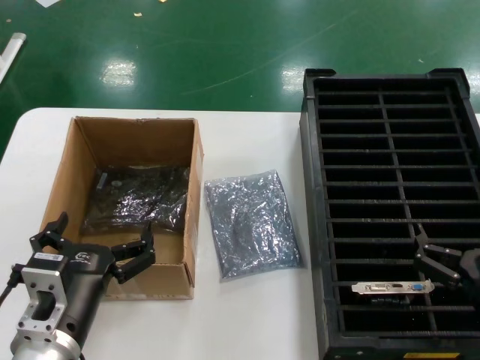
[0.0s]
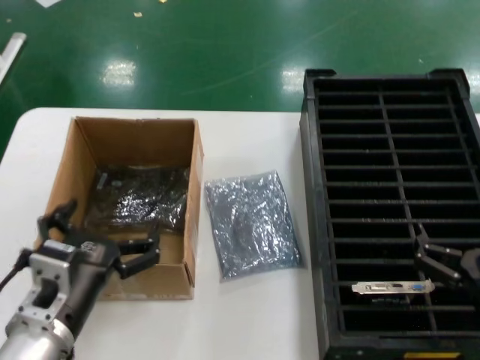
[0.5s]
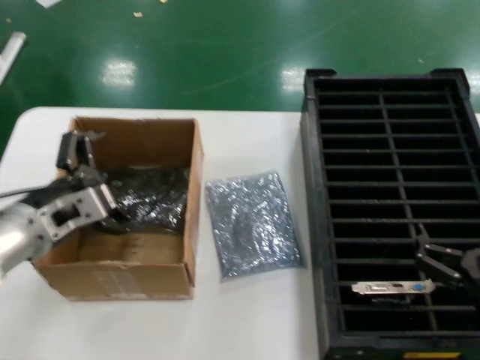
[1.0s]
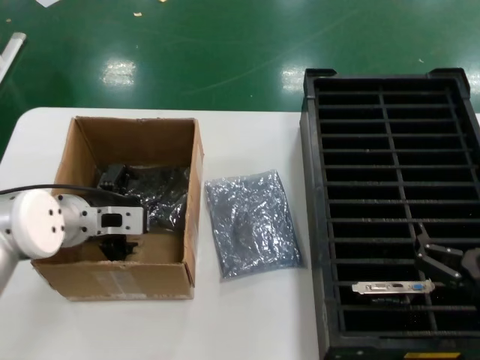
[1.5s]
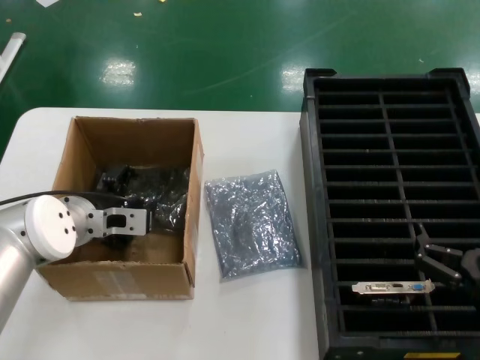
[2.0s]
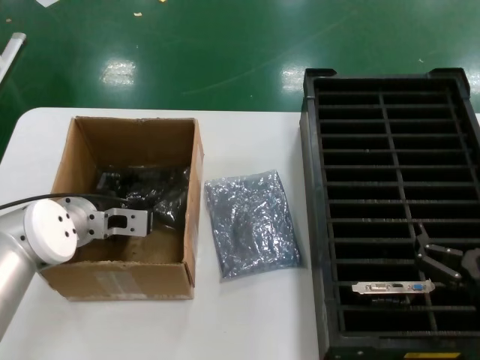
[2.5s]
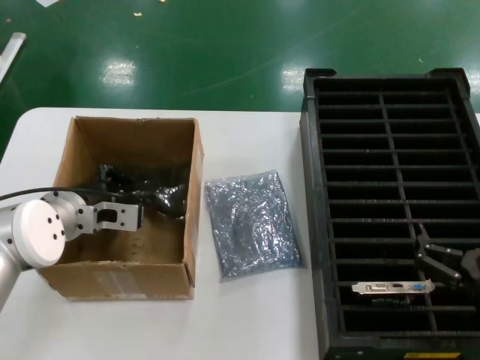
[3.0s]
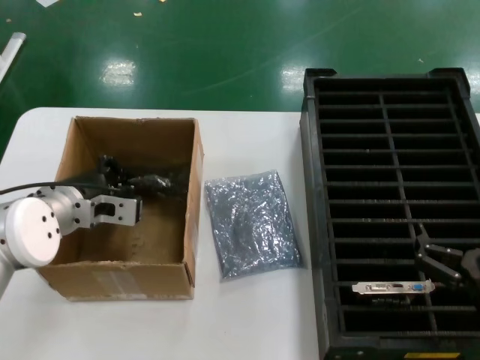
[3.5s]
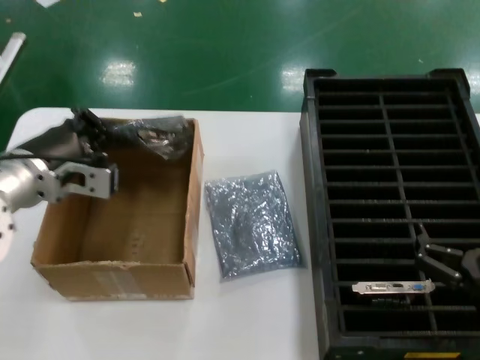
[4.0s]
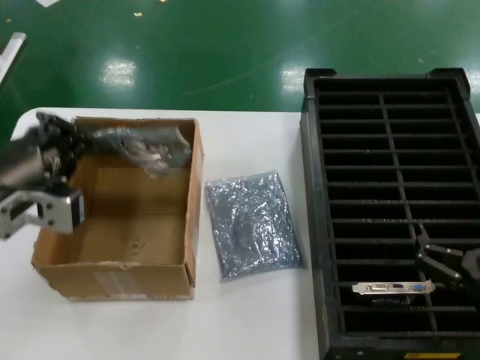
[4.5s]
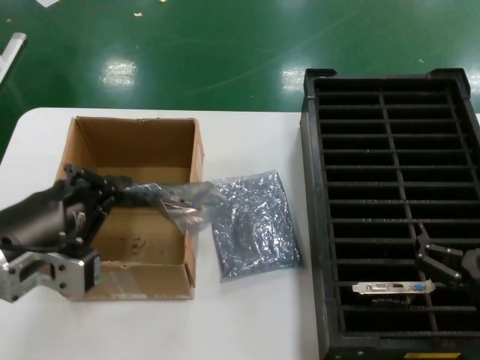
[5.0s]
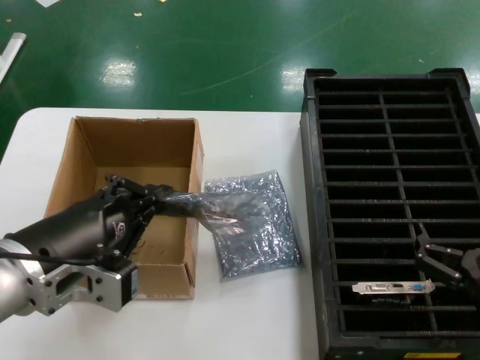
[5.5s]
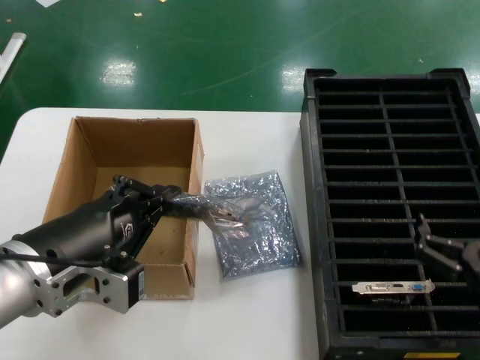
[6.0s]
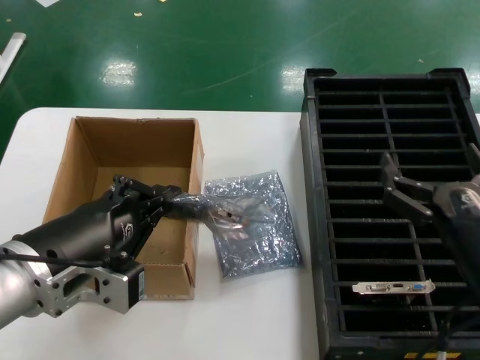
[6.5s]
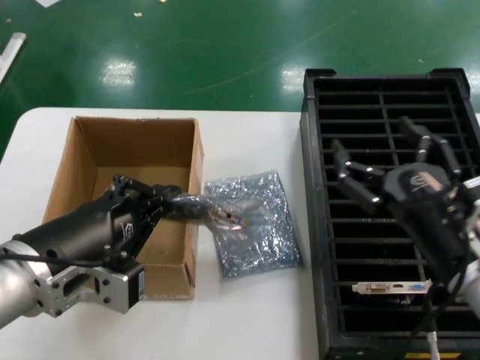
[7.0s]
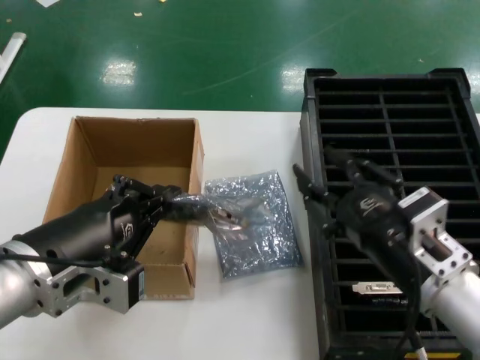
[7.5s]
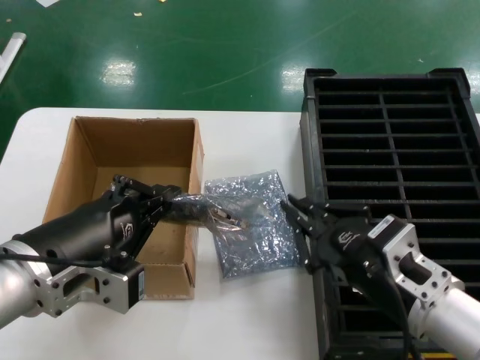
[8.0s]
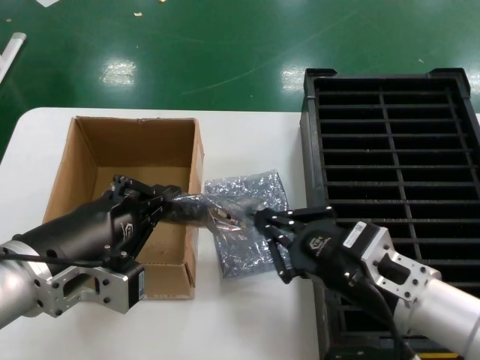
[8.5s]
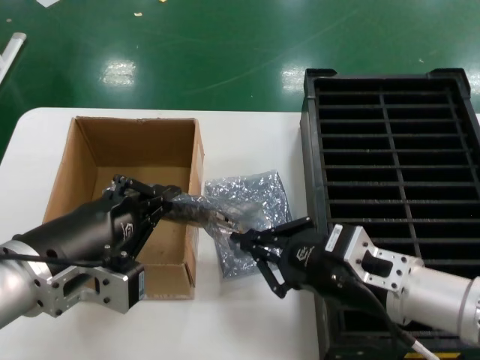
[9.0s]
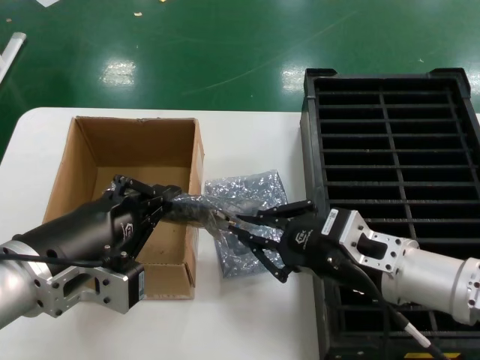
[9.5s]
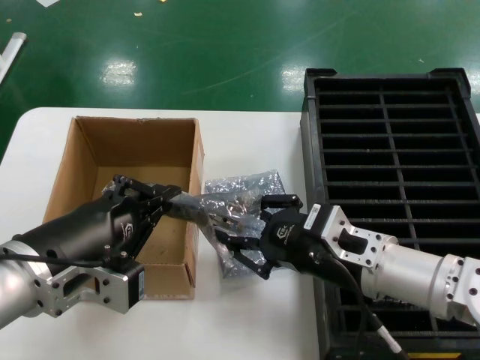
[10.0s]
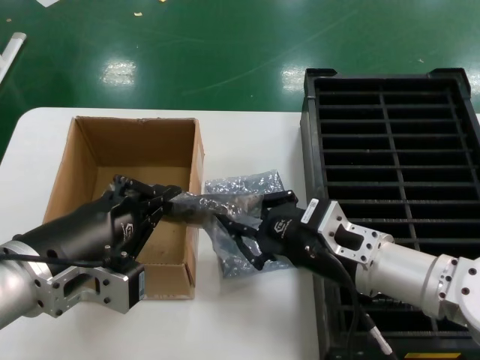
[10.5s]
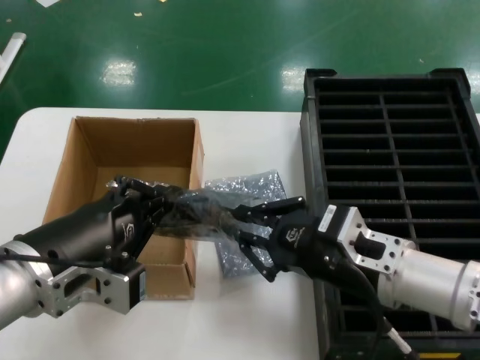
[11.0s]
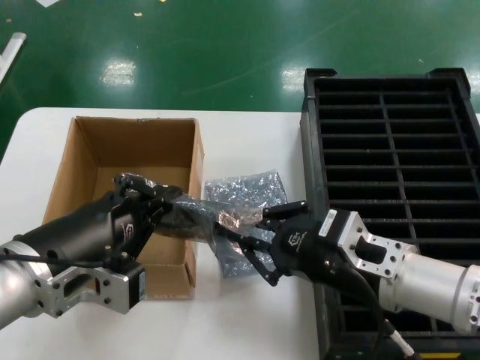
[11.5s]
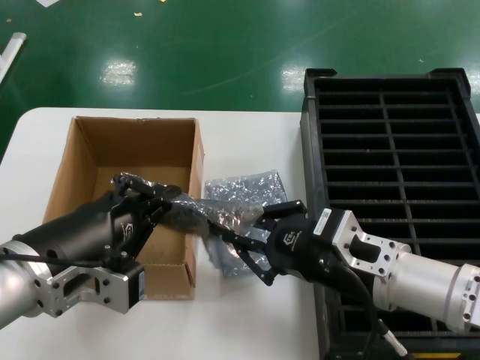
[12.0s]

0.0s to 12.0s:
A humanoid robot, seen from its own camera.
Task of the whole recording: take out graphics card from box remove packaging put into black container.
Step, 0.0s to 3.0s: Grasp the bag.
Step, 3.5s to 5.5s: Lift the bag.
0.0s to 2.0s: The left hand heads forward, covering about 20 cm.
2.0s to 4.0s: The left hand is displaced upward and backward by about 10 cm.
4.0s to 6.0s: The left hand moves backward, some 15 cm.
6.0s to 8.0s: The right hand heads to the left and upward, covering roughly 10 cm.
8.0s to 10.0s: The right hand moves forward, some 5 cm.
10.0s to 12.0s: There are only small adjustments of the hands.

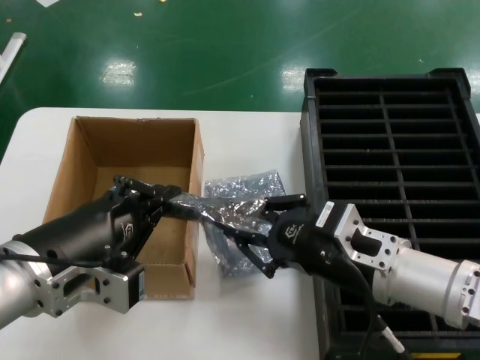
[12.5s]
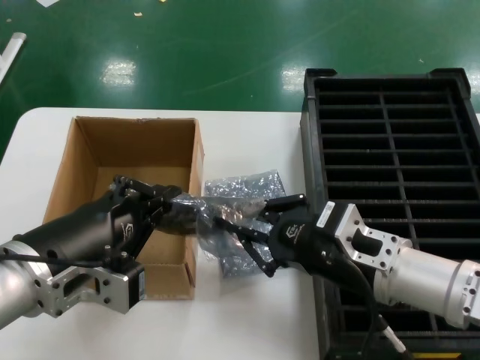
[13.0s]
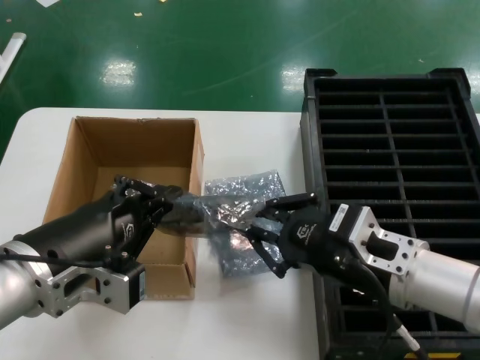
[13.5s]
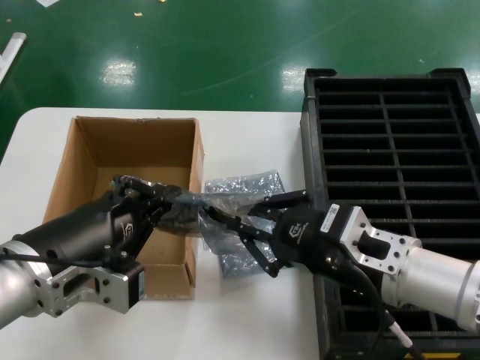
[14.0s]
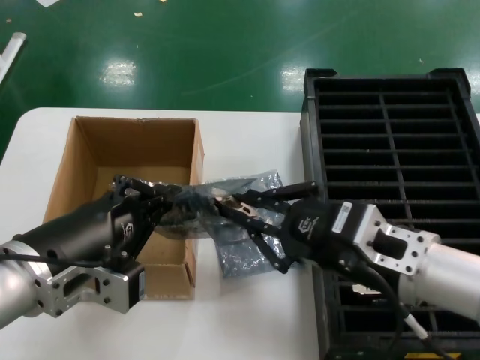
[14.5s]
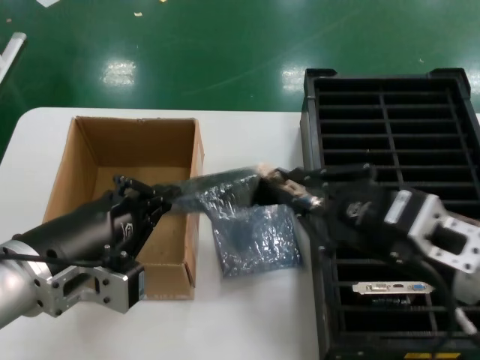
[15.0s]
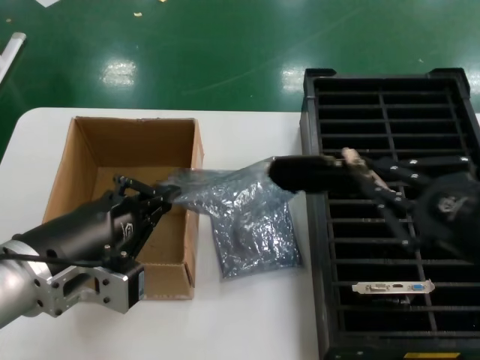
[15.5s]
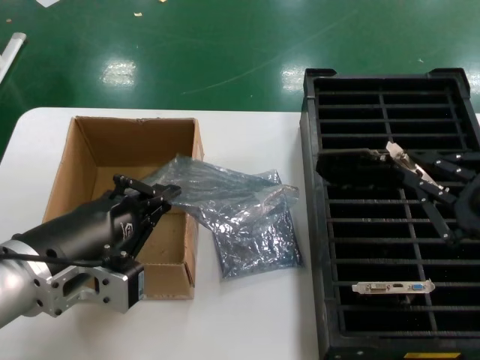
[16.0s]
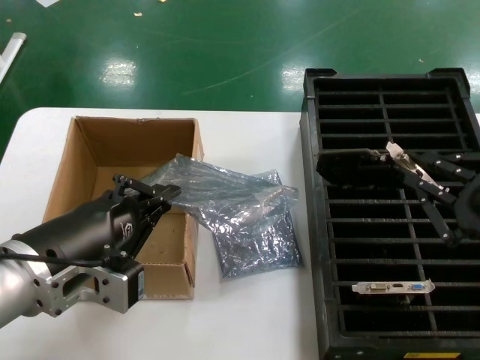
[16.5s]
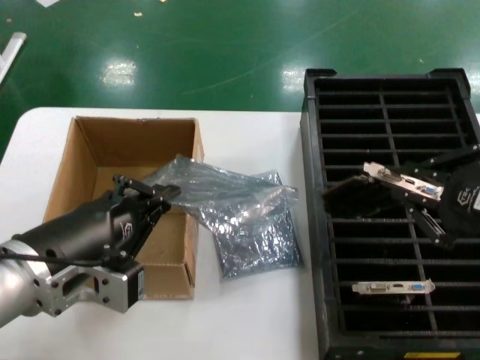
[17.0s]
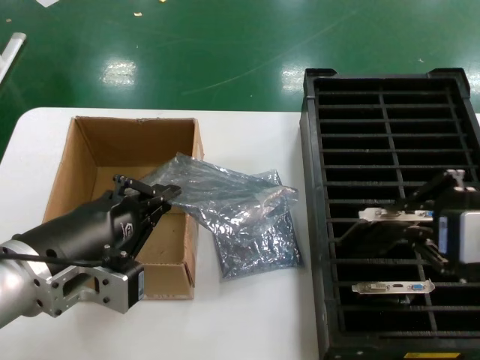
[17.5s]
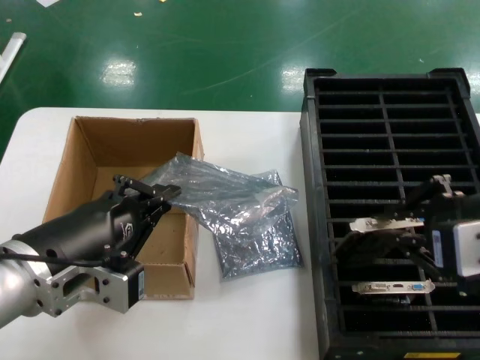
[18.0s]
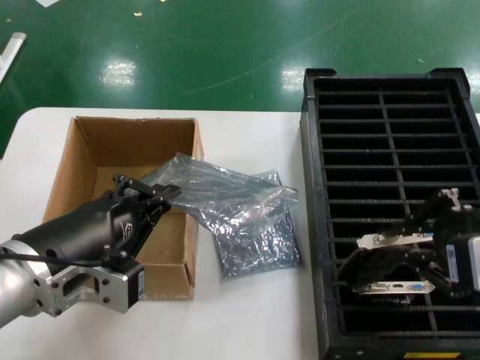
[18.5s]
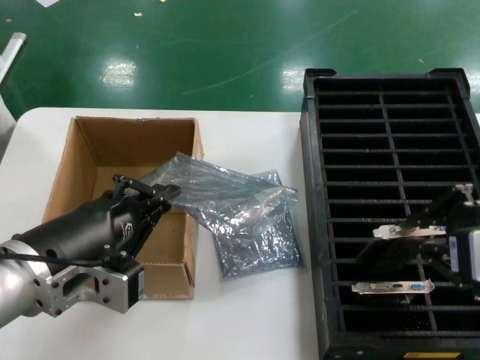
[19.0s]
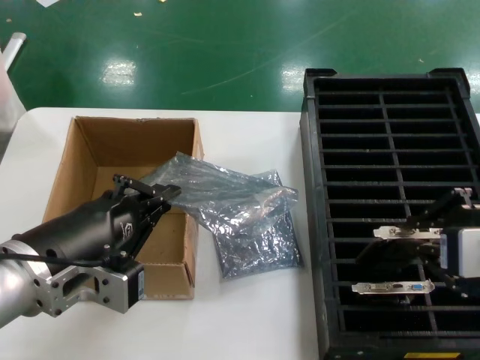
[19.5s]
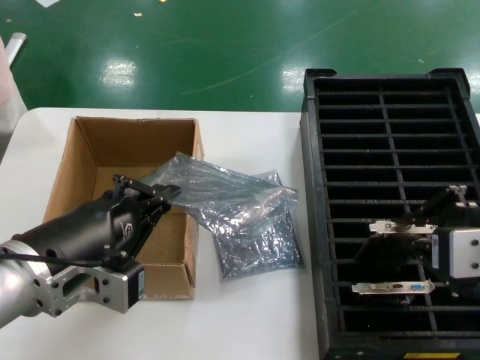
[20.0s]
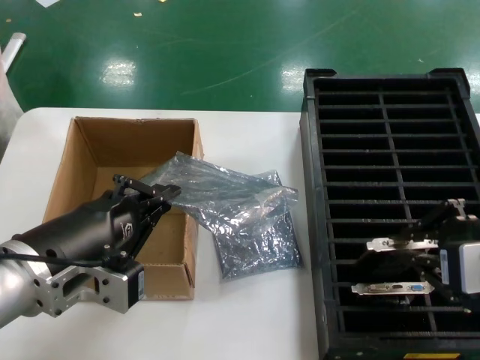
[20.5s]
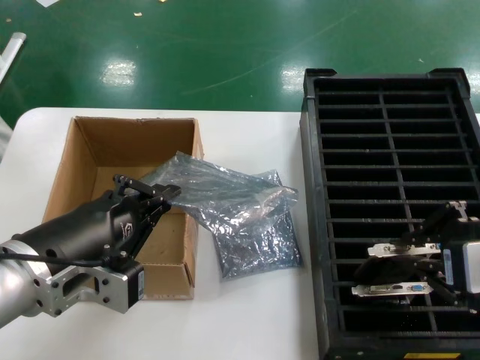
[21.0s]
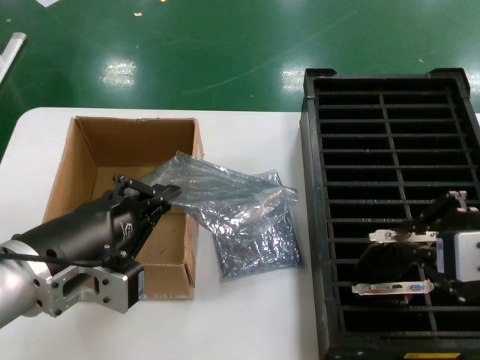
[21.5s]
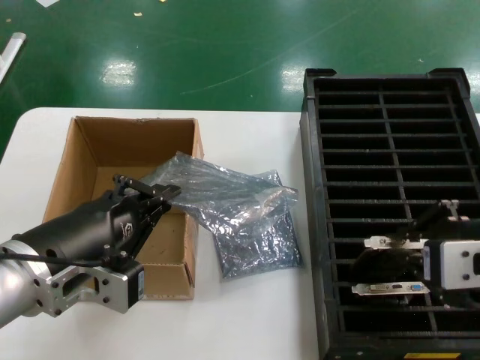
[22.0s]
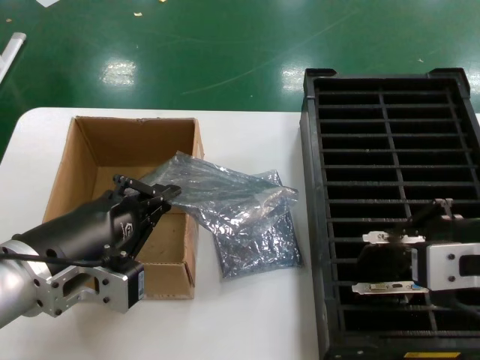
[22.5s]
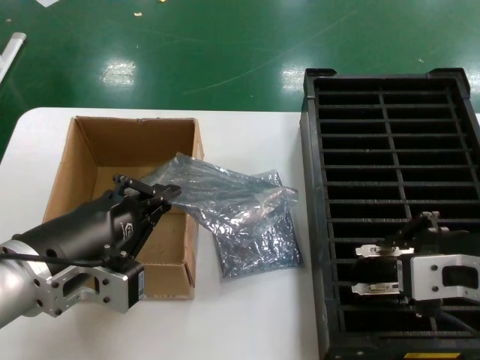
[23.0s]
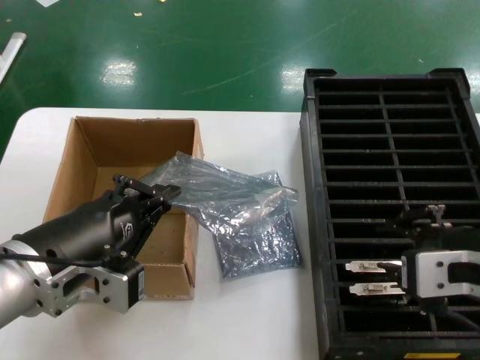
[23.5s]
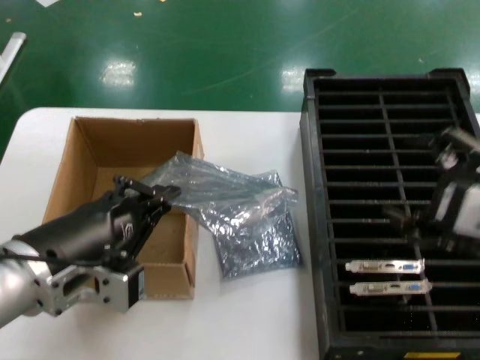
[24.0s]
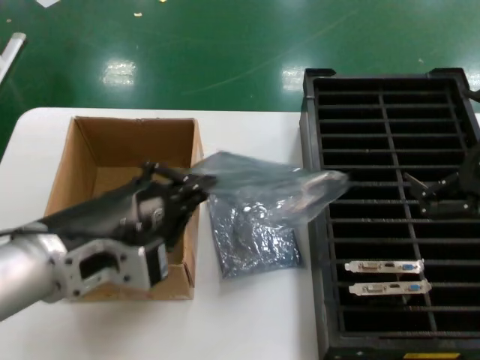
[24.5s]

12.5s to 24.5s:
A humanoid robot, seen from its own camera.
Task of the whole recording: take out graphics card from box remove packaging put into black container.
Step, 12.5s to 15.5s: Take out the hard disk of the bag.
Step, 16.0s to 23.5s: Place the hard disk in the hard disk enclosure.
12.5s to 14.5s: There are only small adjustments of the hands.
14.5s to 16.5s: The right hand shifts roughly 15 cm to the right, backward and upward.
16.5s to 18.5s: The right hand travels upward by approximately 5 cm.
18.5s to 22.5s: The hands move only a little.

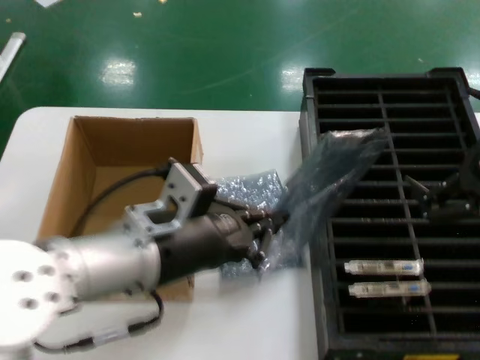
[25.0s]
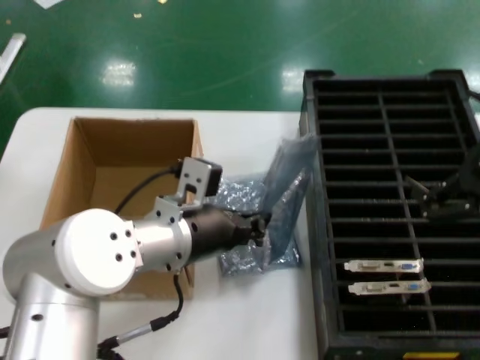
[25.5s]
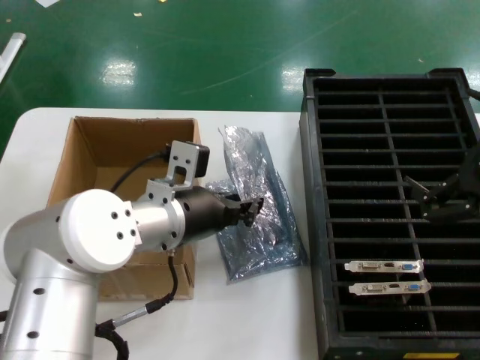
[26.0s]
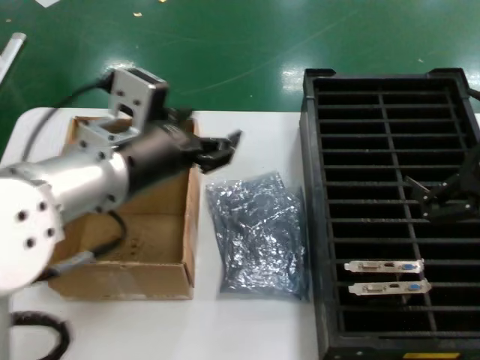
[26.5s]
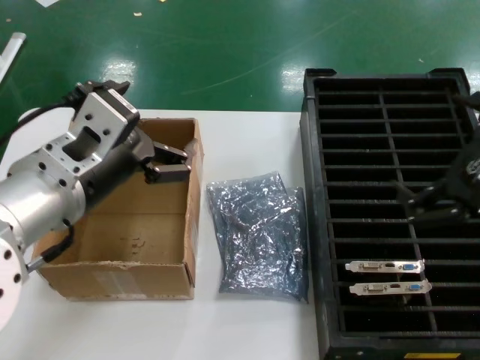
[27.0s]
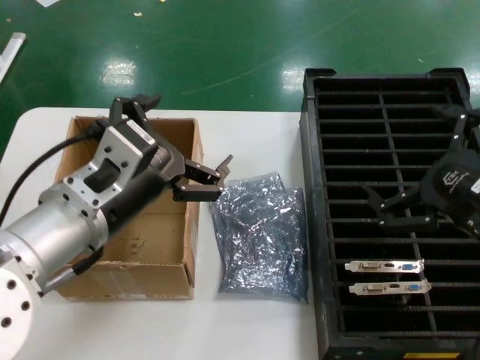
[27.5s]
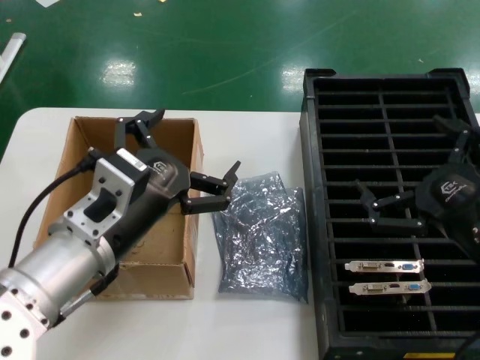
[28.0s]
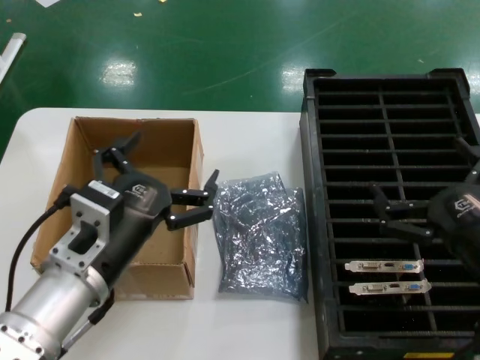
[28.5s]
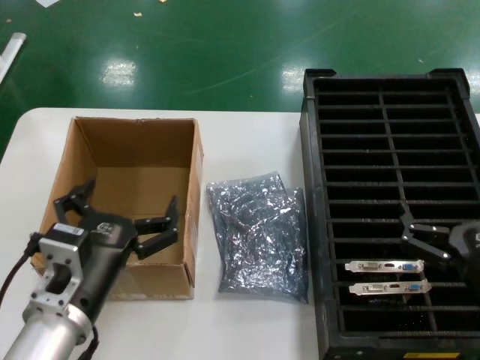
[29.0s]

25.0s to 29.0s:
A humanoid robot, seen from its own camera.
Task of the whole recording: take out graphics card from box remove packaging put into black container.
Step, 25.0s to 28.5s: Place the down the bag.
25.0s to 27.0s: The left hand goes forward and returns, some 10 cm each way.
27.0s to 29.0s: The hands both shift downward by approximately 20 cm.
